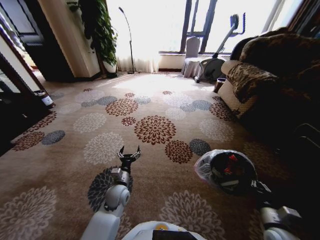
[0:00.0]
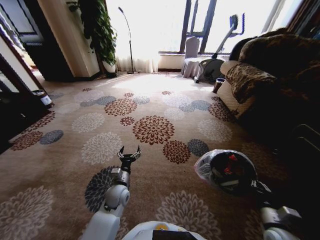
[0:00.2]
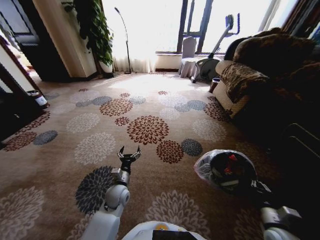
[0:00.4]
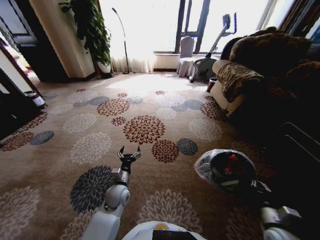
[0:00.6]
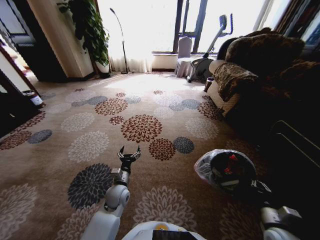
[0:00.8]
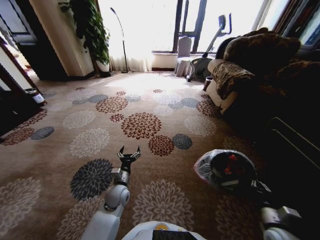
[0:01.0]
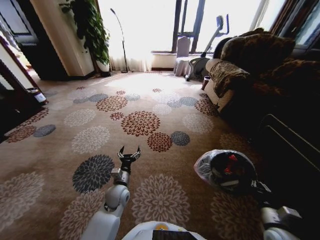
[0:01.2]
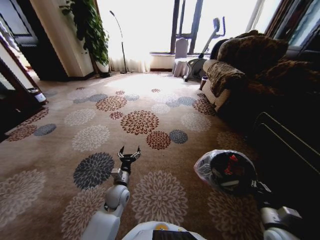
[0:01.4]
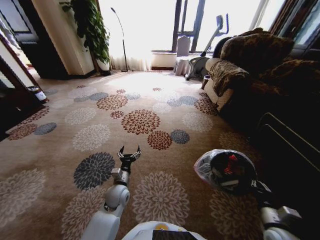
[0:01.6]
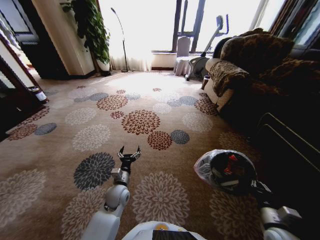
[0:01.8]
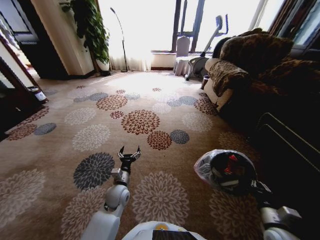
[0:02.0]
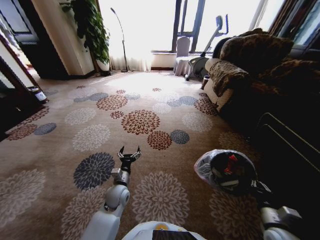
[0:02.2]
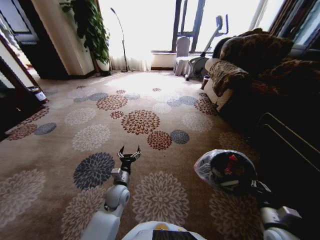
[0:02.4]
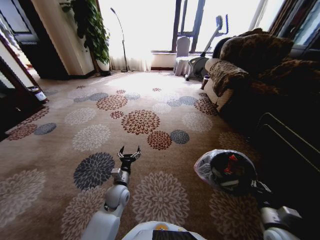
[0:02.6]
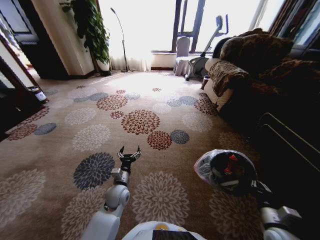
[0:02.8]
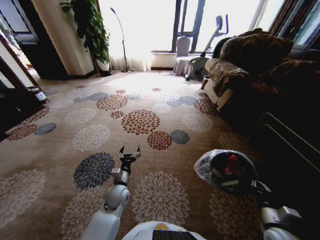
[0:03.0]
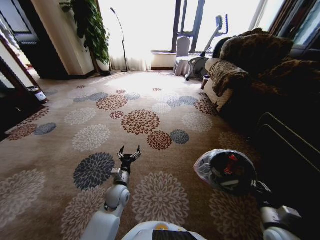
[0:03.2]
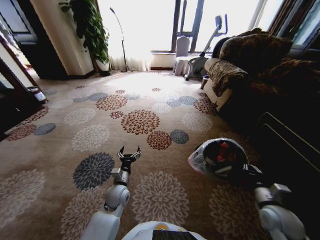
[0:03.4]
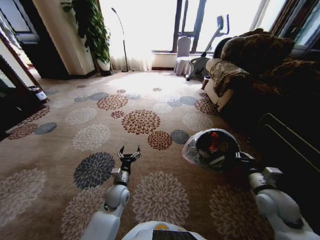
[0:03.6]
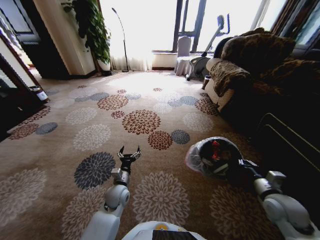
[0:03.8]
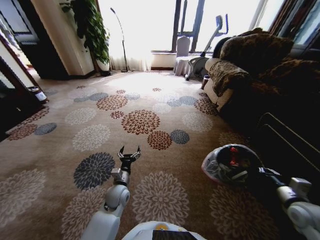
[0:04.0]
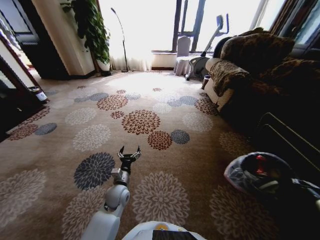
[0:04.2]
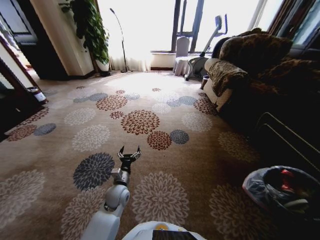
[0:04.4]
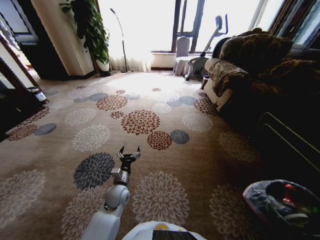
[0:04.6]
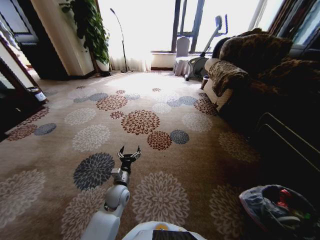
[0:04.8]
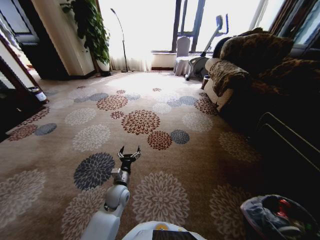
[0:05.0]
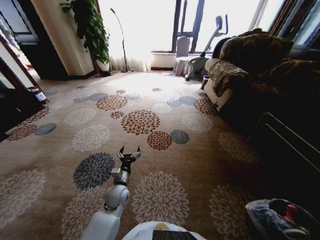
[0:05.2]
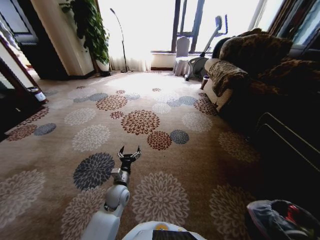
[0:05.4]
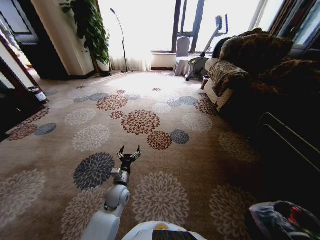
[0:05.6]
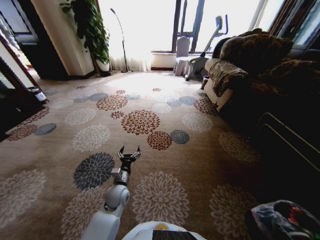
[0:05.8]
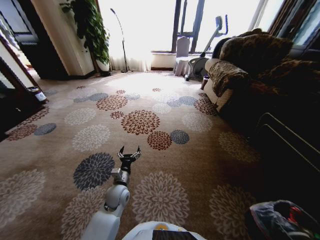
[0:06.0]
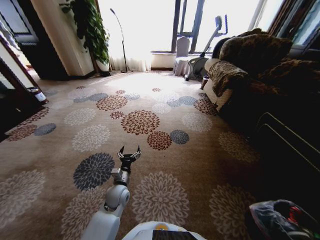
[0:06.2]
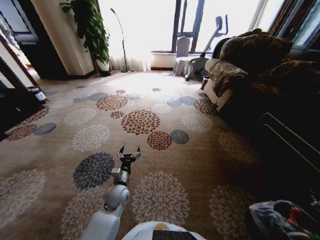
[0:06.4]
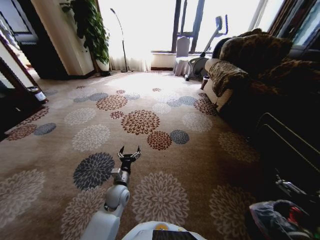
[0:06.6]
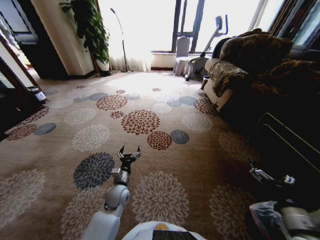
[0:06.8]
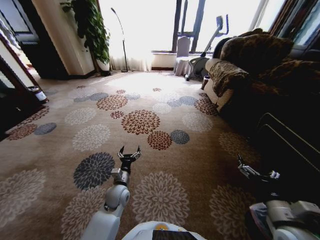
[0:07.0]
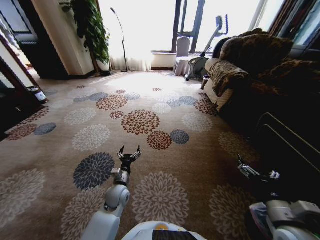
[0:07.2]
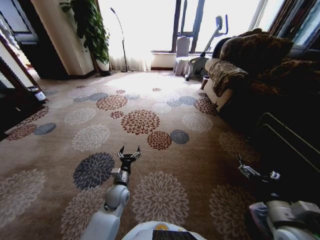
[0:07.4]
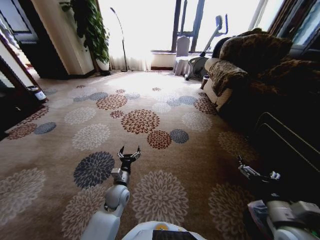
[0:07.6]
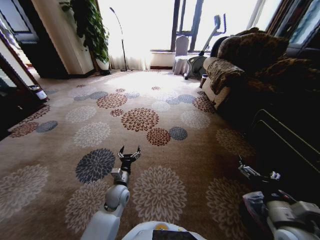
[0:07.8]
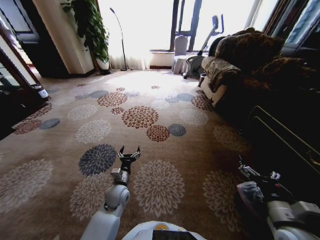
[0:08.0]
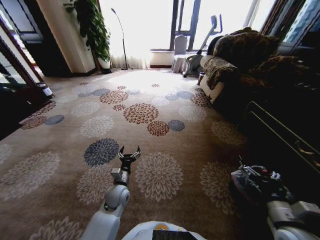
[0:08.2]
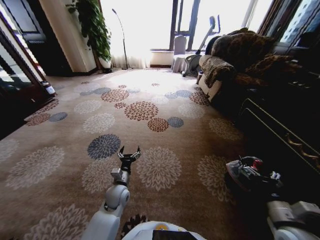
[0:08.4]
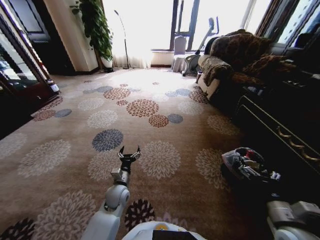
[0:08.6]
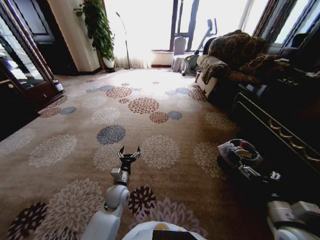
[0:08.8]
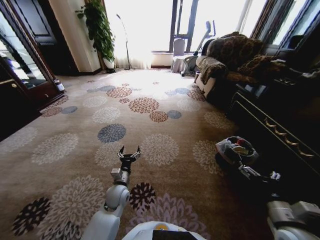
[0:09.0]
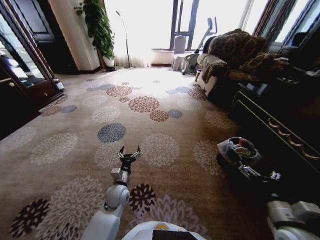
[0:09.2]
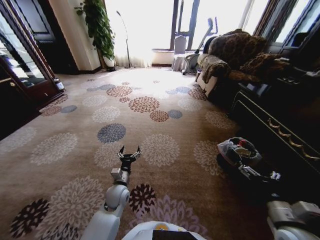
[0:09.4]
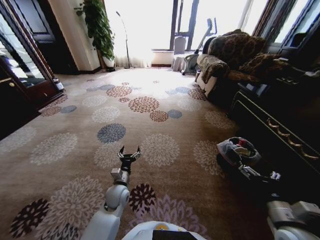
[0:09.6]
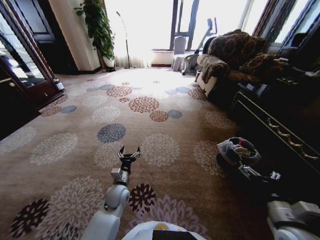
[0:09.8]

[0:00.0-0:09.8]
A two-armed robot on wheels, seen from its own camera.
Task of the whole recording: Pick up the trash from the ground and place it into the trash bin.
0:01.4 to 0:02.8: Neither gripper changes place.
0:02.8 to 0:04.2: The right gripper moves to the right and upward, approximately 20 cm.
0:04.2 to 0:05.6: The right gripper shifts some 20 cm backward, downward and to the right, and opens its fingers.
0:05.6 to 0:07.0: The right gripper goes about 35 cm to the left and upward, and opens its fingers.
